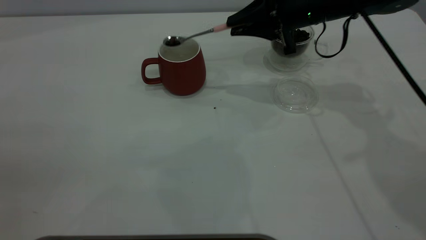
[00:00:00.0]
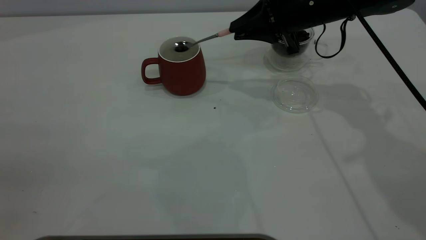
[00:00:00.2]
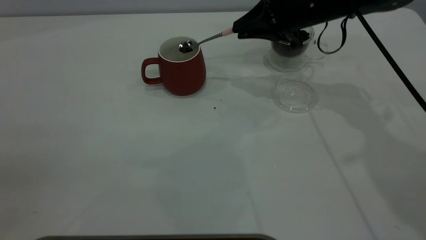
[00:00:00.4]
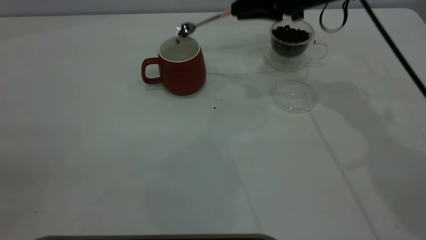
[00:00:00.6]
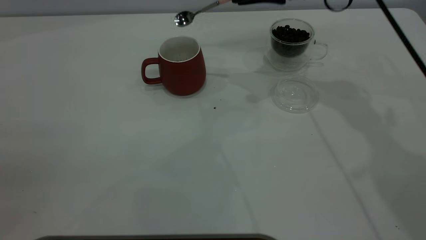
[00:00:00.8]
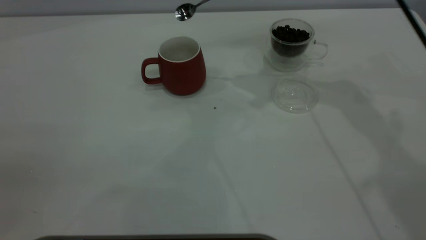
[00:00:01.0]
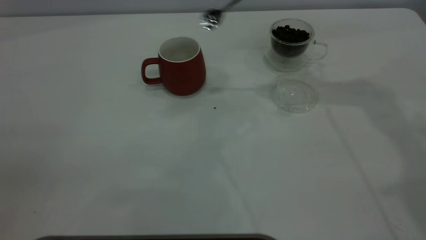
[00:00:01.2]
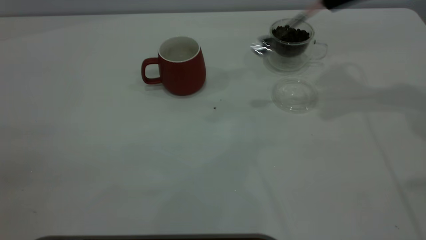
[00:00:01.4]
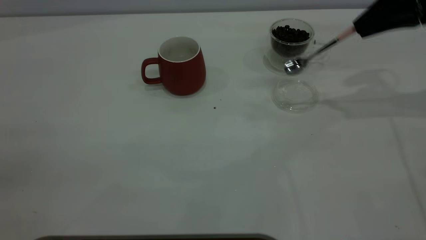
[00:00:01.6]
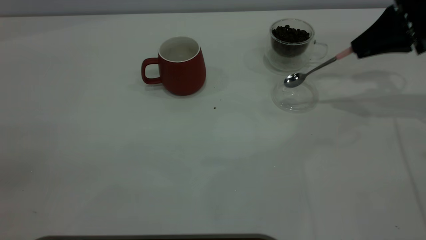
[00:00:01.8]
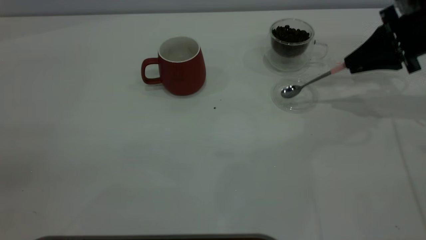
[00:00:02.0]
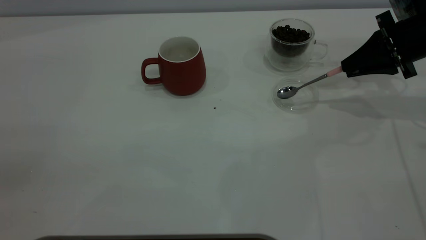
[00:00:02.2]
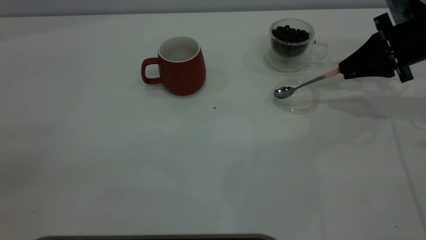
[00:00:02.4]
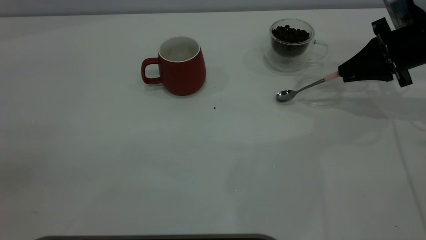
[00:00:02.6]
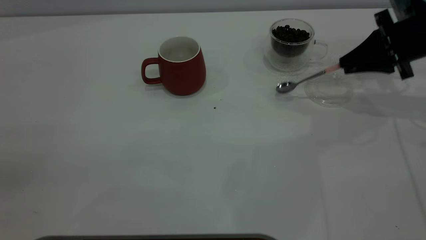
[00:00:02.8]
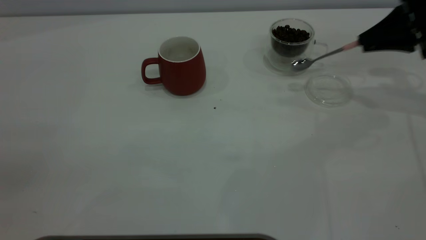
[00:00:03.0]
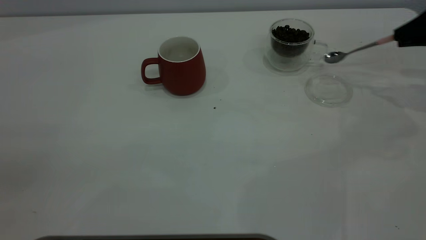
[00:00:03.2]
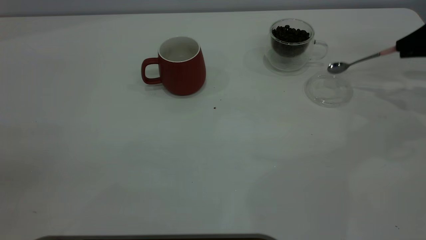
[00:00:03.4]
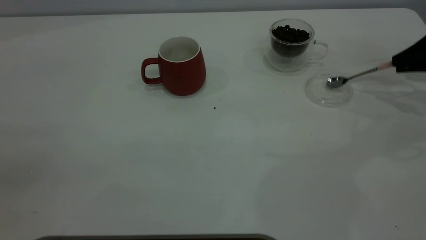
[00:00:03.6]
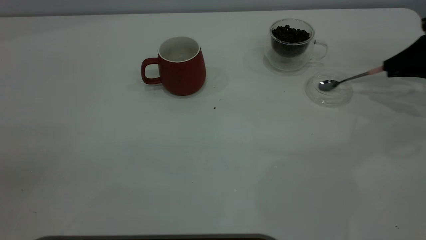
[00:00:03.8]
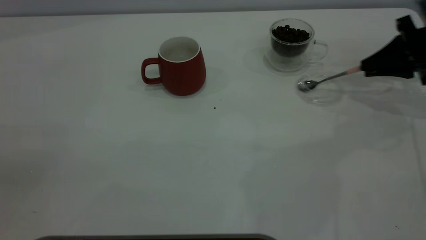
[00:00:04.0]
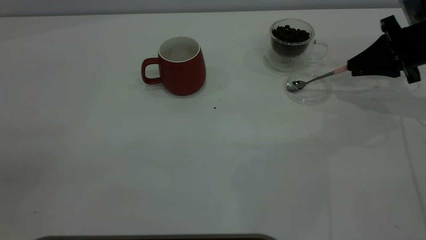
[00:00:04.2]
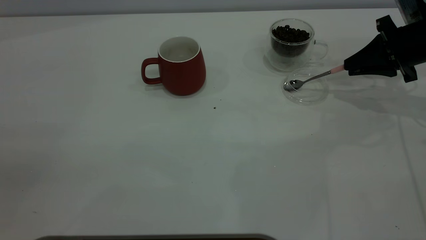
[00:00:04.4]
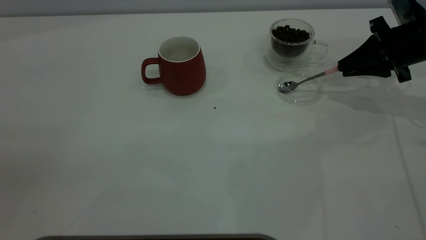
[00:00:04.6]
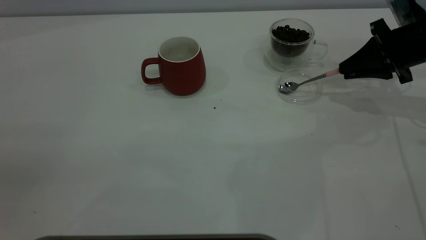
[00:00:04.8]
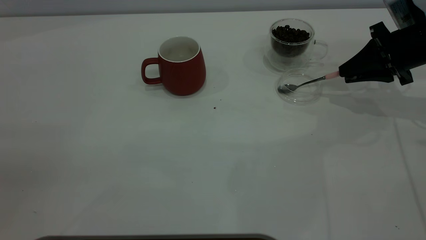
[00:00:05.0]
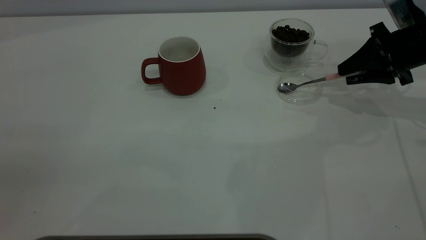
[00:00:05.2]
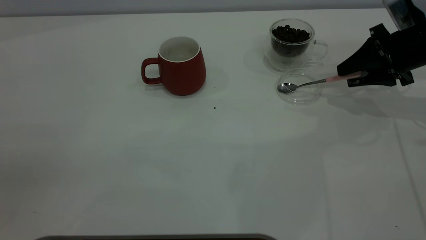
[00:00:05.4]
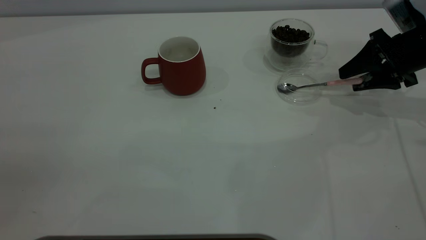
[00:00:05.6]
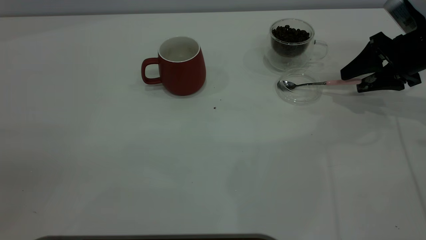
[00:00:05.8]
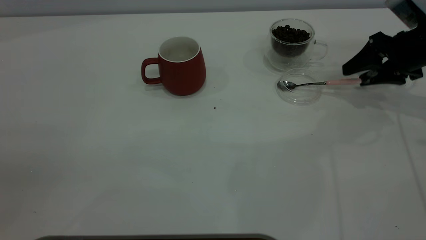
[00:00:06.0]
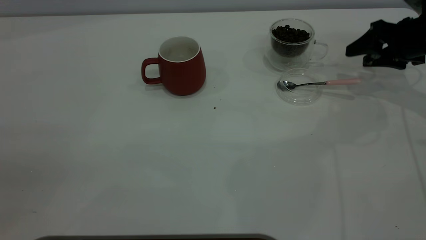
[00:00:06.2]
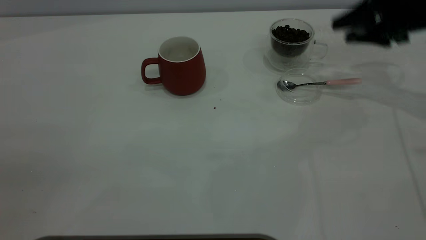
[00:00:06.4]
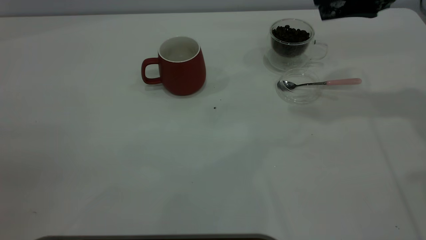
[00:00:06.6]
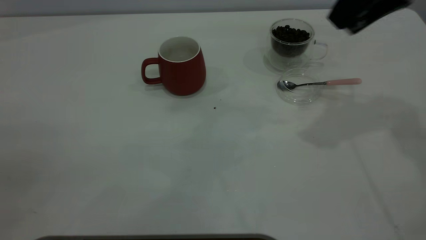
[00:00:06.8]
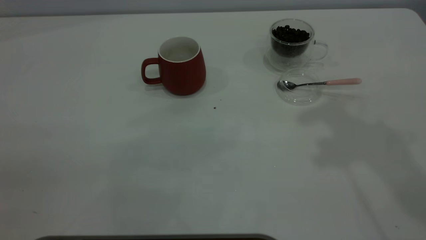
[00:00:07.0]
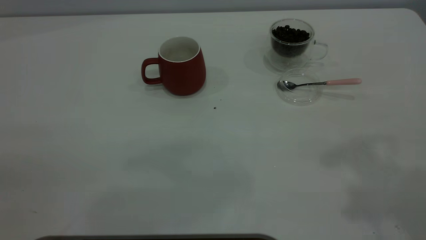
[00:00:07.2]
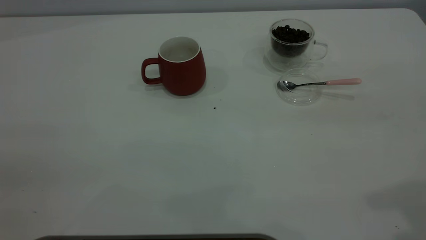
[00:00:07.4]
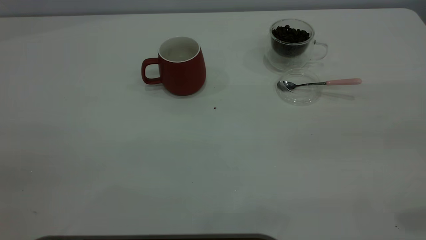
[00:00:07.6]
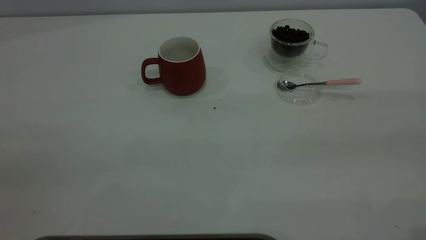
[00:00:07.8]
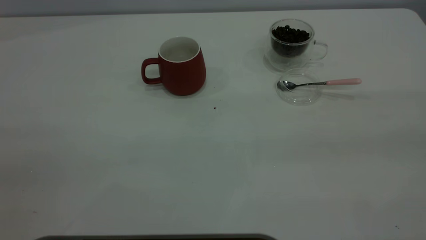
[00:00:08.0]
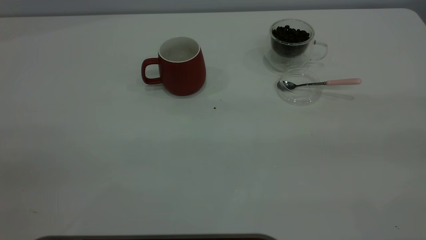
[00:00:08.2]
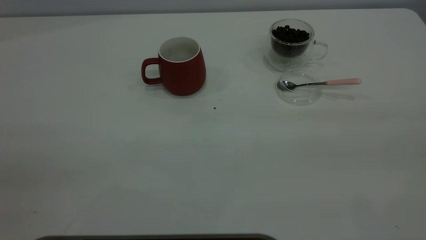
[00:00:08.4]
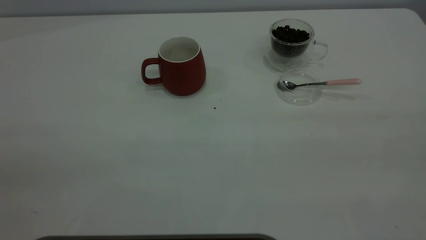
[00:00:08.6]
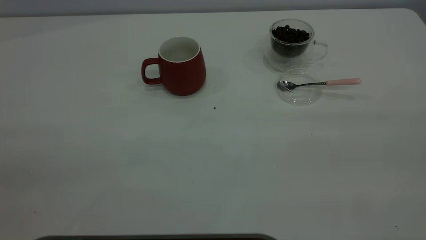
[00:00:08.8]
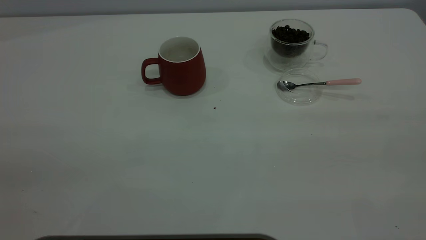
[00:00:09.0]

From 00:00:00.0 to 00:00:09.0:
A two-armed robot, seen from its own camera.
Task of the whole recording: the left gripper place the red cup in the center of the table, the right gripper take the pink spoon from the cup lid and scoop out the coffee beans from the coffee cup and put them into the red cup, the right gripper put the spoon back into the cup lid.
Step, from 00:00:01.0 to 00:00:06.2: Place the spoon back in its original place.
From 00:00:00.0 to 00:00:01.6: The right gripper travels to the right by approximately 15 cm.
From 00:00:03.0 to 00:00:04.4: The right gripper goes some 5 cm downward.
From 00:00:04.4 to 00:00:06.0: The right gripper opens its fingers.
From 00:00:06.0 to 00:00:07.6: The right gripper moves backward and upward, about 40 cm.
